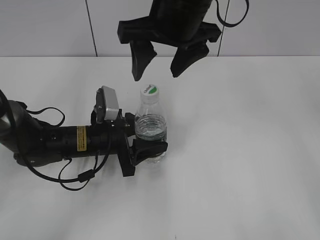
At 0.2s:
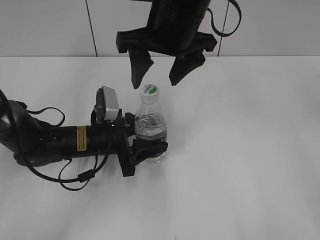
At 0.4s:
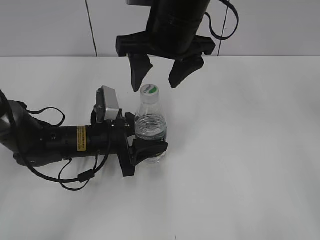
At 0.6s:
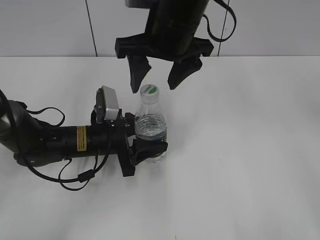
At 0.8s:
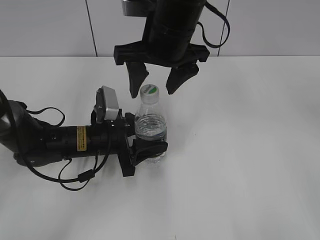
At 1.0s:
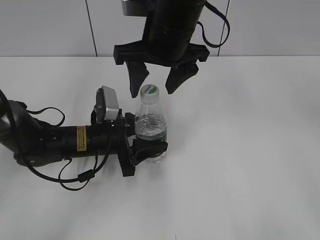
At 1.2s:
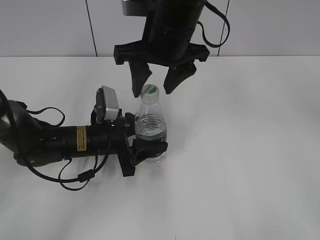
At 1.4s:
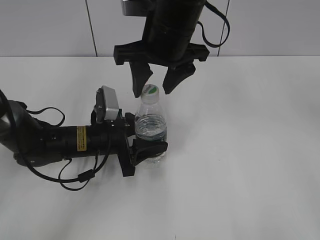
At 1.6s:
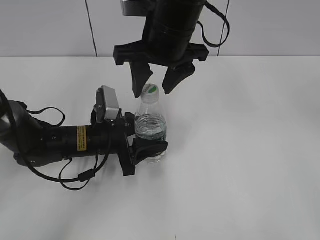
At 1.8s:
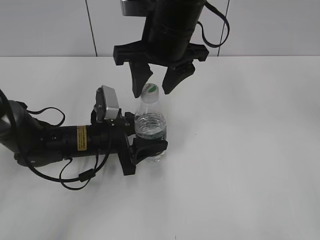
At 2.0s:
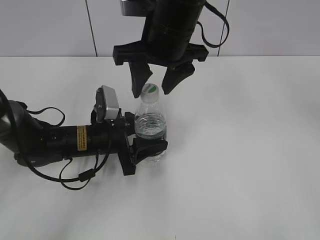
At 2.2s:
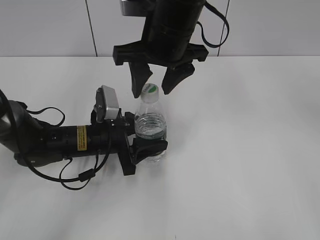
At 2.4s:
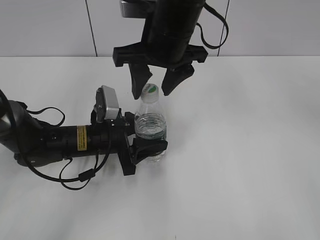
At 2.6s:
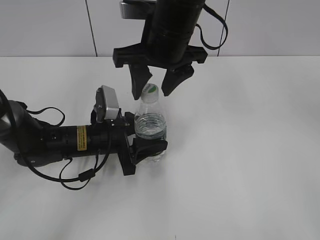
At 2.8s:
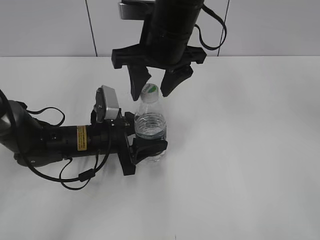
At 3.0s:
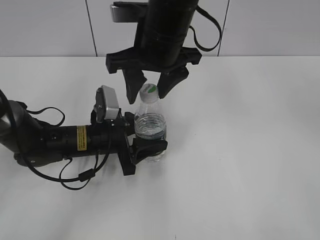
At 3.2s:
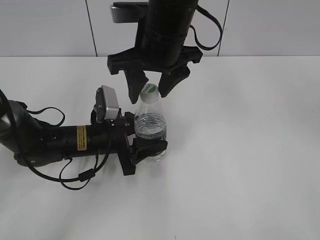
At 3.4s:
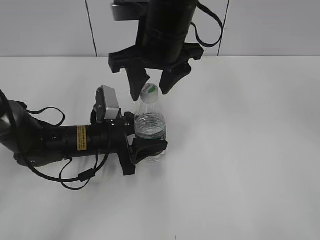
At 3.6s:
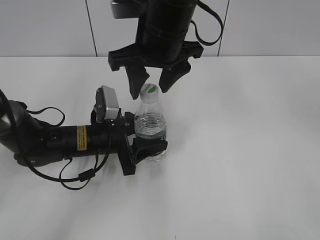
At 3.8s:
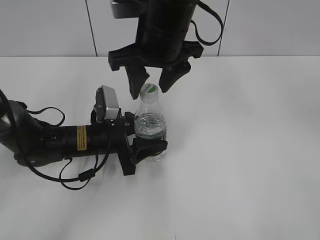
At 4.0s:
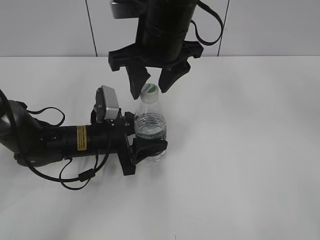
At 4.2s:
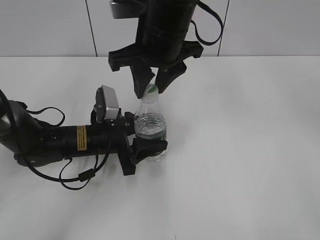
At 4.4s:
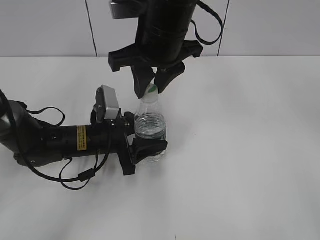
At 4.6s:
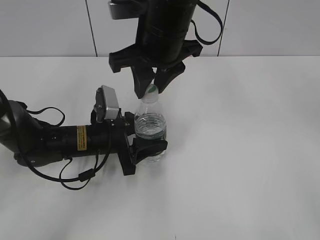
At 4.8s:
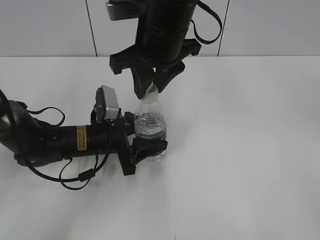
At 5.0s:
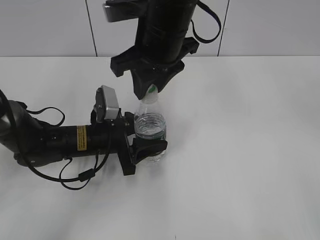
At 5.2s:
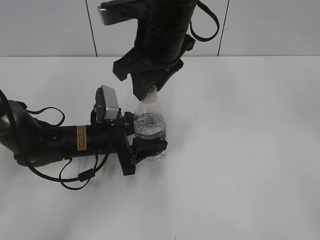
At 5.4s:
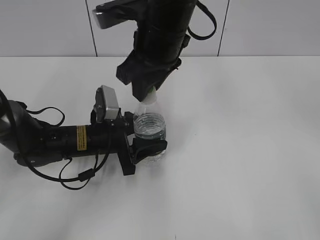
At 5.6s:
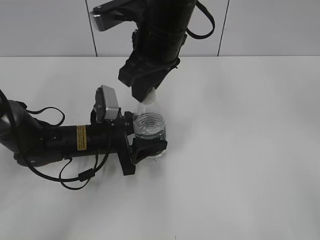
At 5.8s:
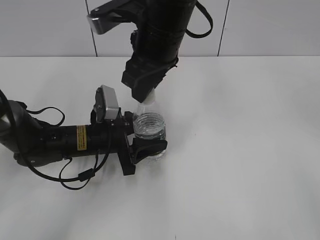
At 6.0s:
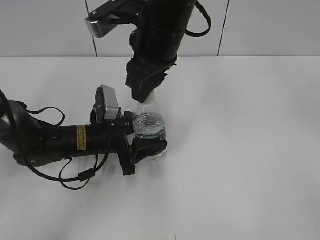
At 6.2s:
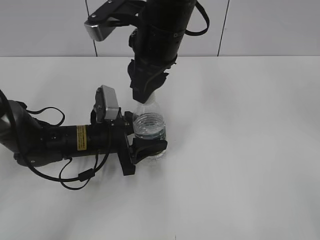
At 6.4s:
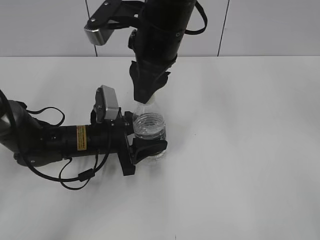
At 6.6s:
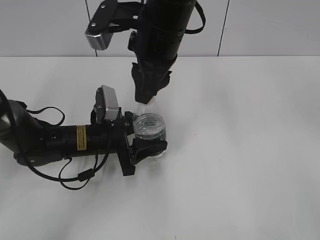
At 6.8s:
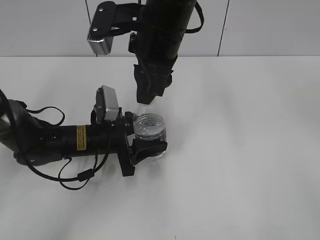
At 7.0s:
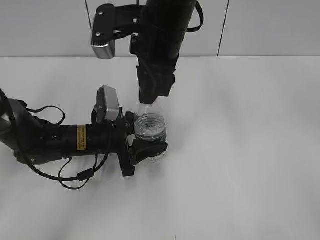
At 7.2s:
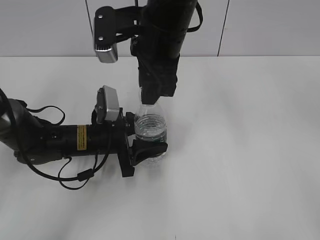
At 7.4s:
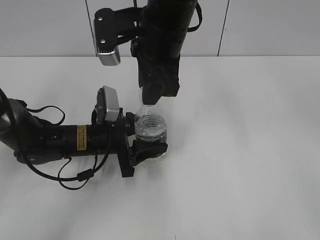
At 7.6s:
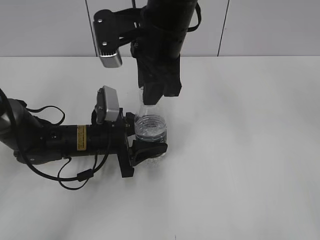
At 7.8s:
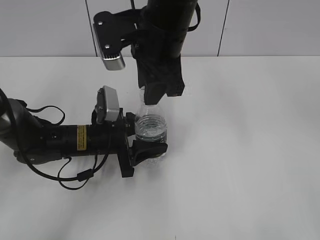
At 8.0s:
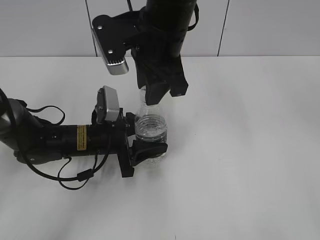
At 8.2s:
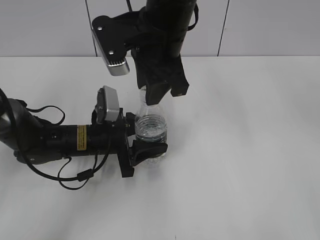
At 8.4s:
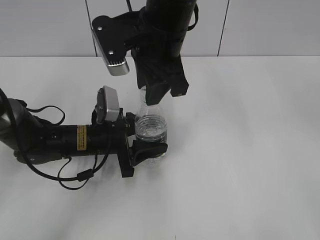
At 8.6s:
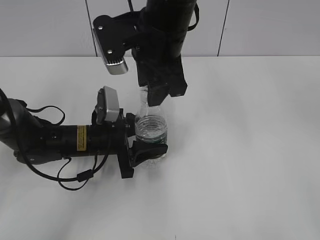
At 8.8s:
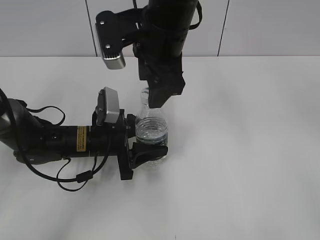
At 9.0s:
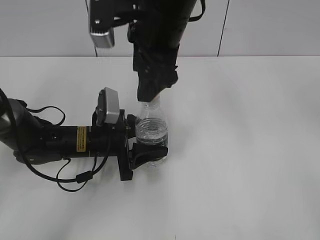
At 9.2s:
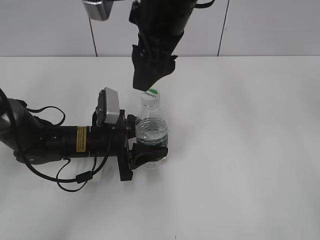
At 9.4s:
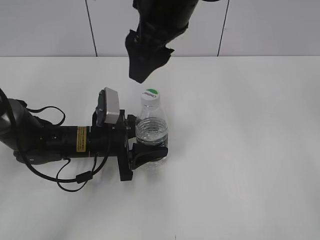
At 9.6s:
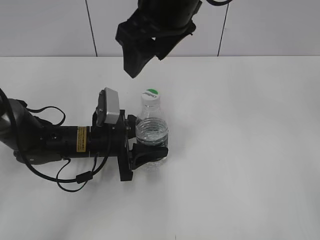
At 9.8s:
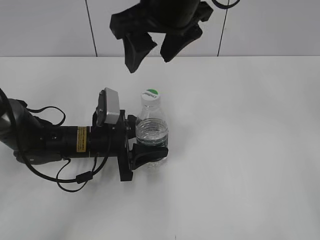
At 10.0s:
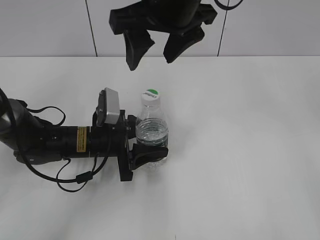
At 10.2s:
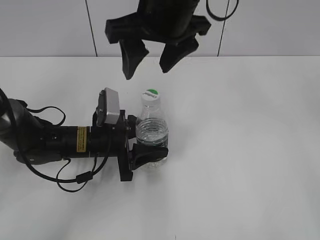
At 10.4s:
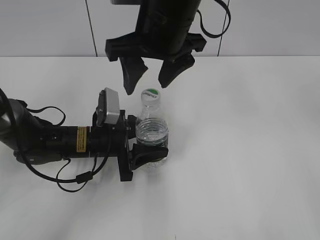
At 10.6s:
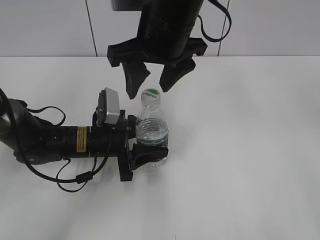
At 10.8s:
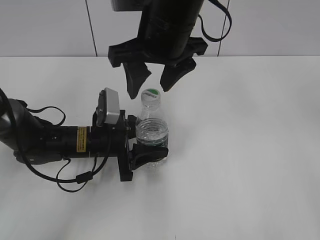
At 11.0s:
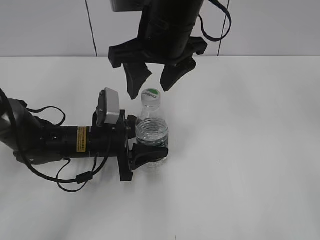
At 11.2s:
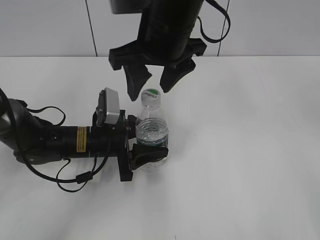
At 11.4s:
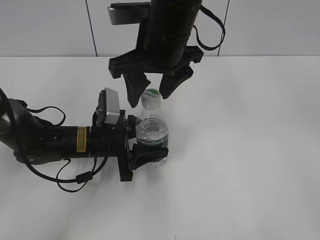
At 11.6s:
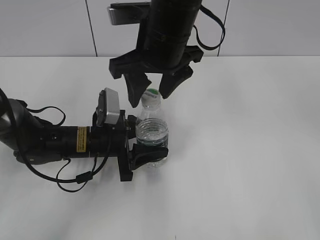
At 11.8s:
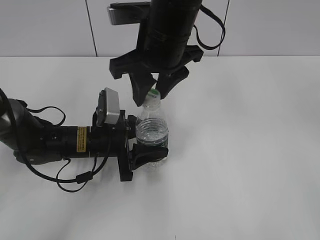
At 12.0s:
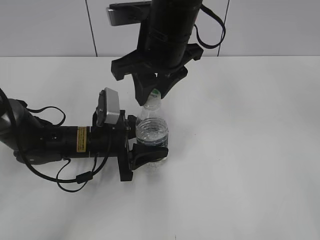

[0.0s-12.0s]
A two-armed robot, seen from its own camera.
0.0s to 1.6s: The right gripper closes up.
1.6s to 3.0s: The two grippers keep their place.
3.0s to 4.4s: The right gripper closes.
7.6s to 9.0s: The right gripper opens up.
10.4s to 12.0s: The right gripper closes its fingers.

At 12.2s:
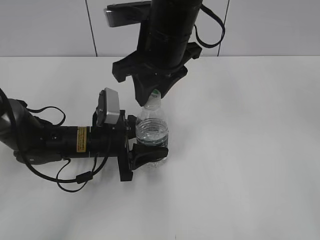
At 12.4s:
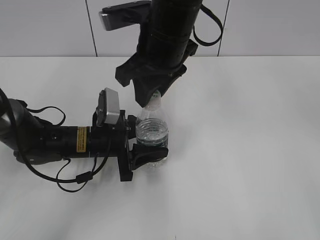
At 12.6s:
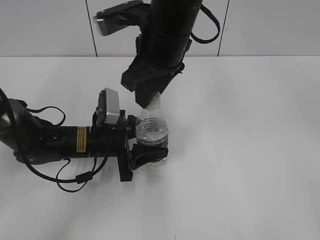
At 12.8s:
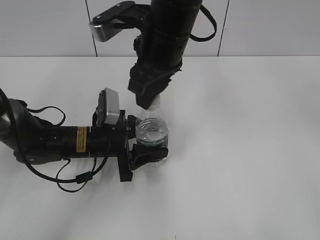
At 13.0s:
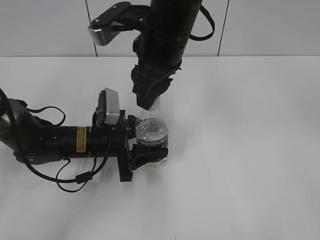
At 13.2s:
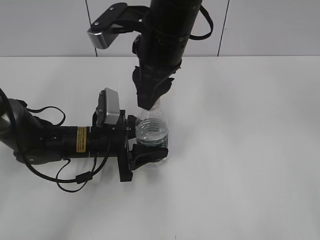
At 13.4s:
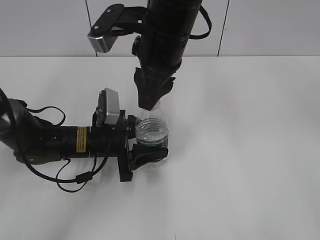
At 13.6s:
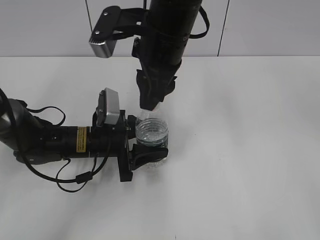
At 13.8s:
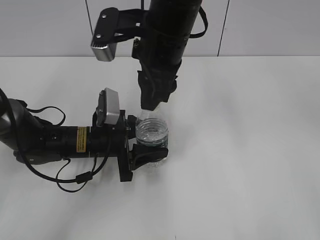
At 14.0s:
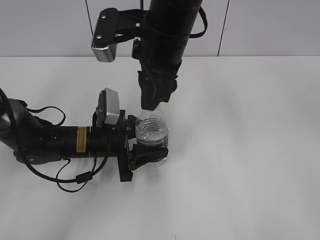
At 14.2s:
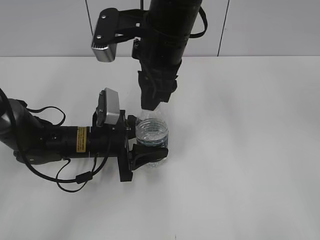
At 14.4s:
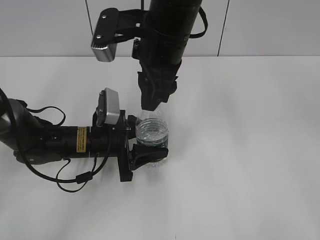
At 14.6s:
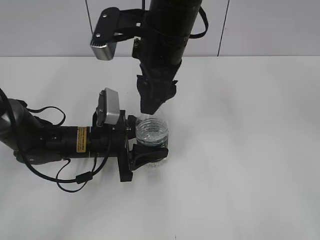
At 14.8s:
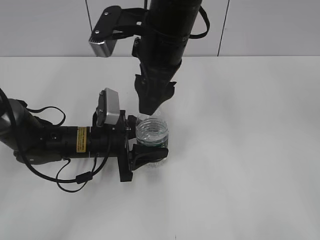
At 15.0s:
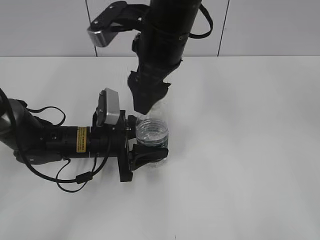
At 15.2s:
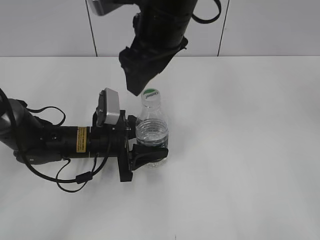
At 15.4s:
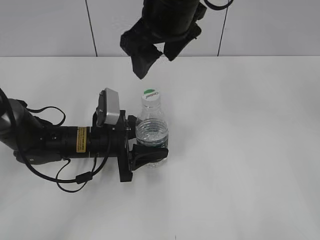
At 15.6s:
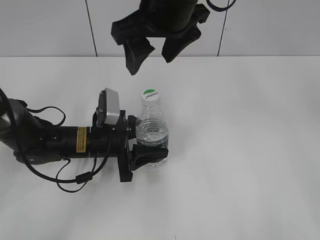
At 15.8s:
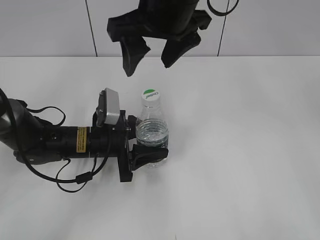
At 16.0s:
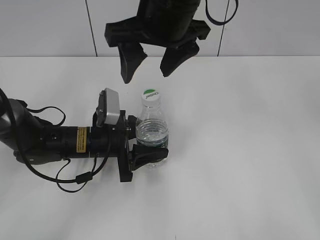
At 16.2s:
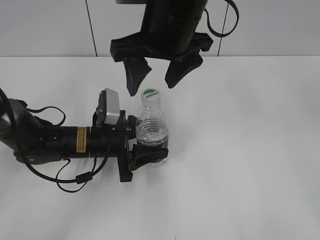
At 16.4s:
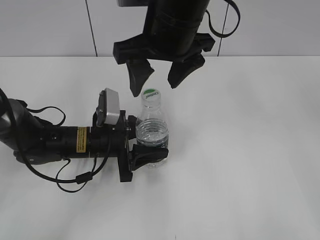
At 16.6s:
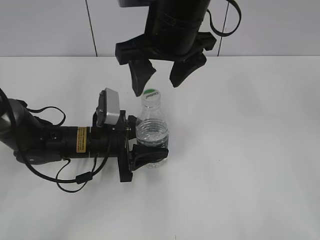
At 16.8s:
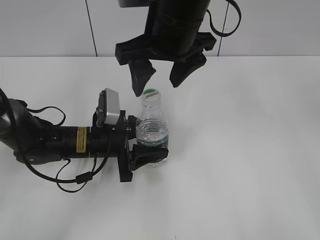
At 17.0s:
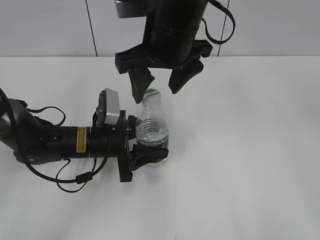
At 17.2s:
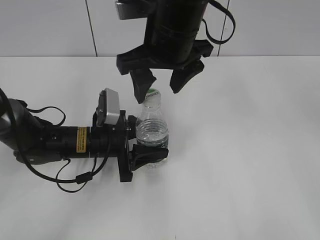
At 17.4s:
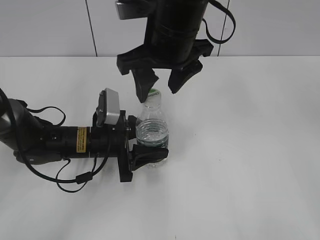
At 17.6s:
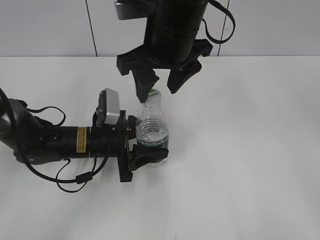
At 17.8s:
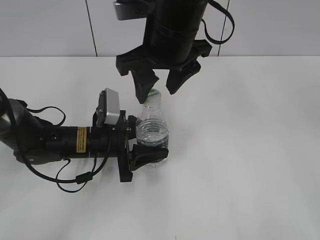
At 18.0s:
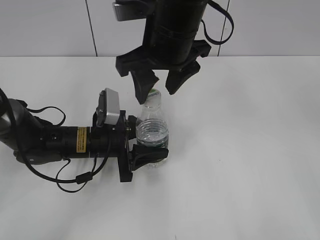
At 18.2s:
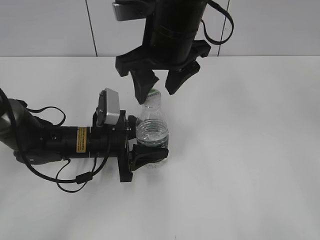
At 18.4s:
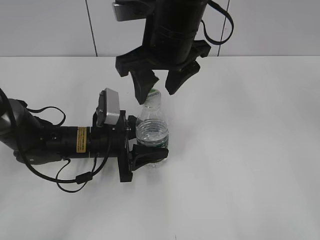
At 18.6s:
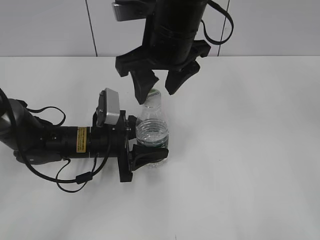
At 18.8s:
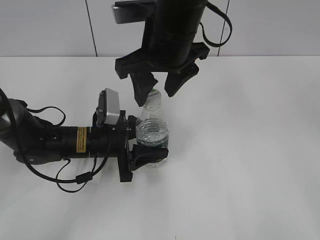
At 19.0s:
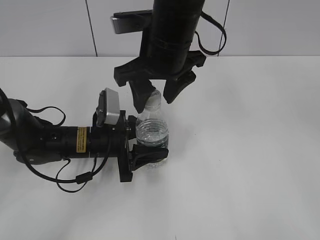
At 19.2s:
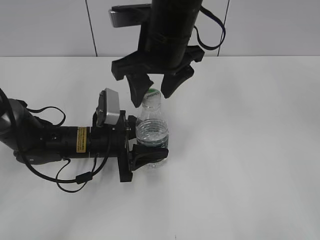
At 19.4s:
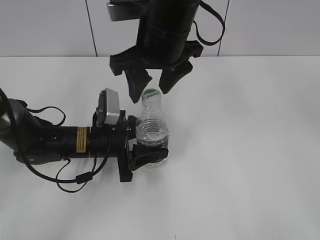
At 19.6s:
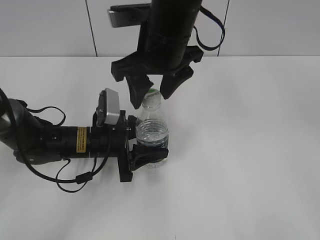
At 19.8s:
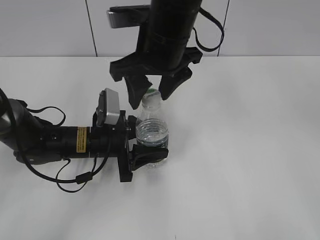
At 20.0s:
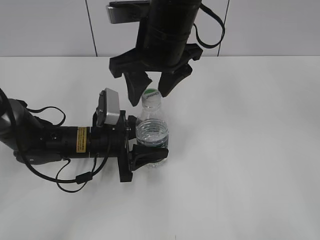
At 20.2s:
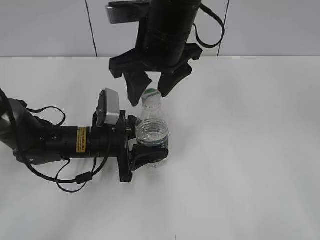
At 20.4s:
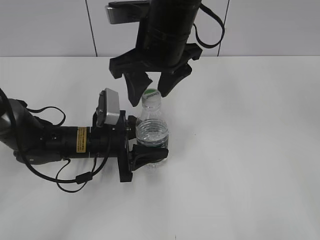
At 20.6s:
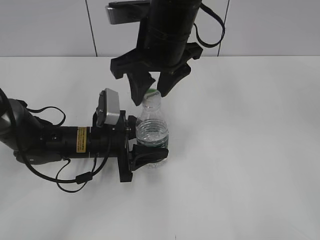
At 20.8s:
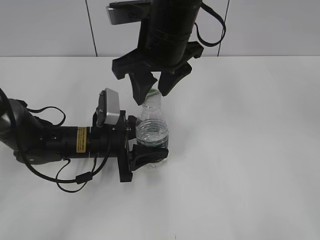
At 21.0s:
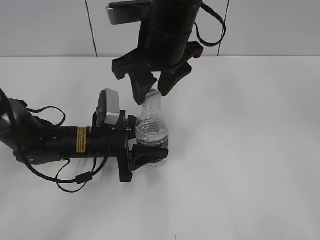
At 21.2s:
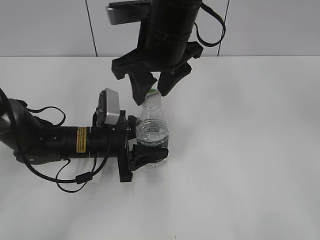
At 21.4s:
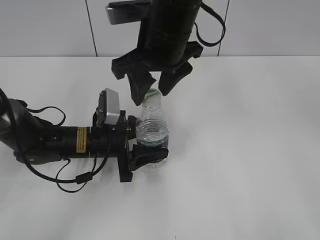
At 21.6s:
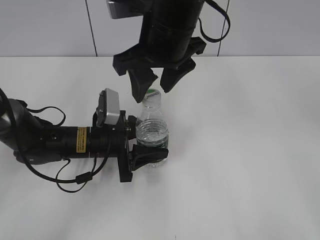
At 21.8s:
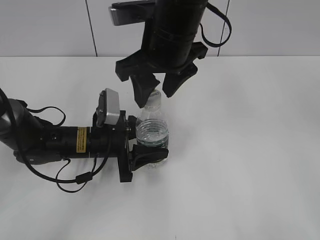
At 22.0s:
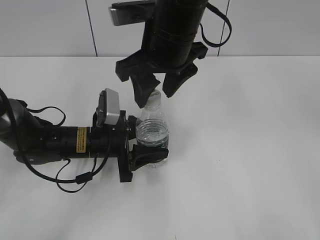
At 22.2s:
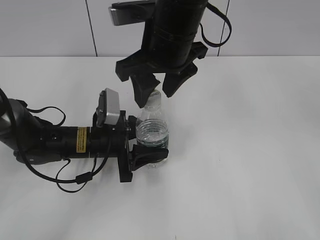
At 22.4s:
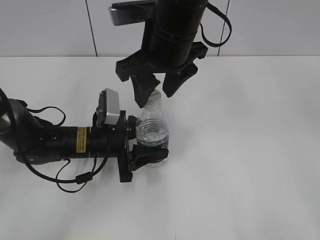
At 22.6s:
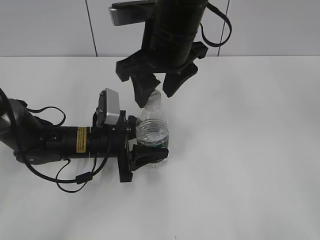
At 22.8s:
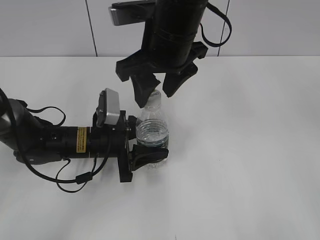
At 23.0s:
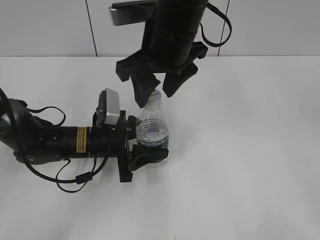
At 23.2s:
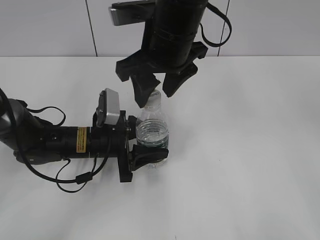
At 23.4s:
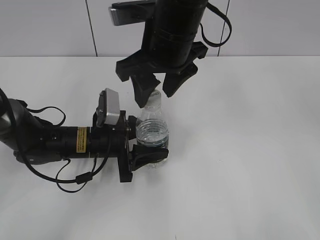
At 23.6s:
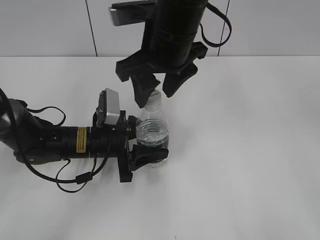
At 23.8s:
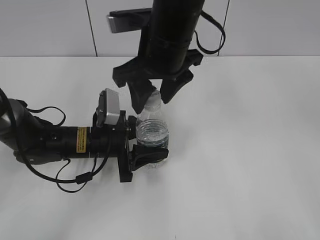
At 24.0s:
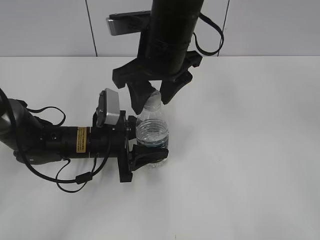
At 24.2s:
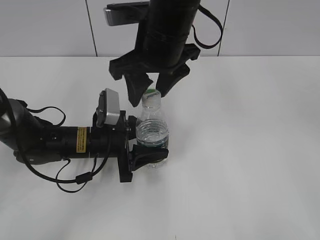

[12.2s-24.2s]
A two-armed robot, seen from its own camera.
13.8s to 15.2s: The right gripper opens up.
16.6s to 19.8s: The grippers make only small movements.
19.8s to 22.6s: Both grippers stay put.
22.6s to 24.2s: There are only small adjustments of the grippers.
